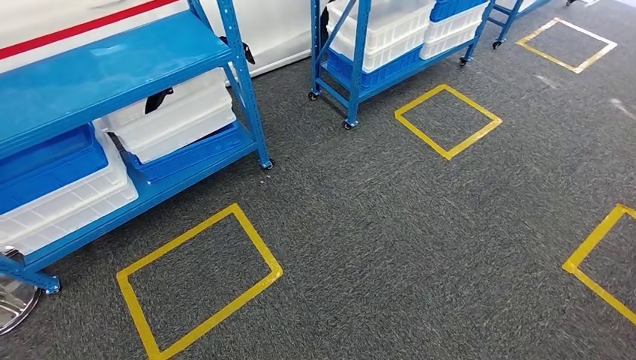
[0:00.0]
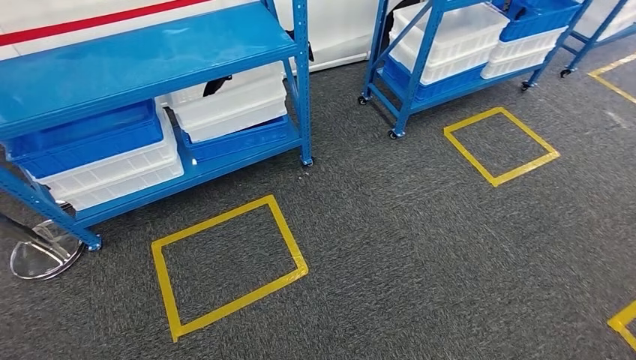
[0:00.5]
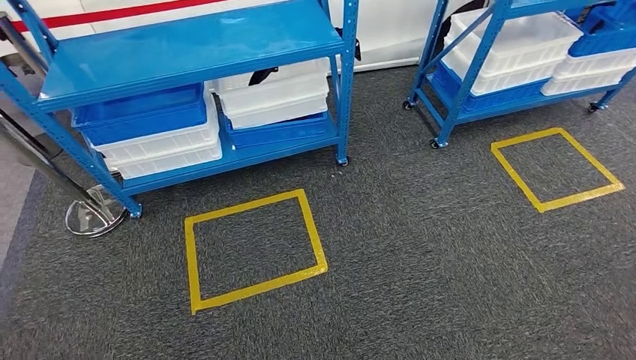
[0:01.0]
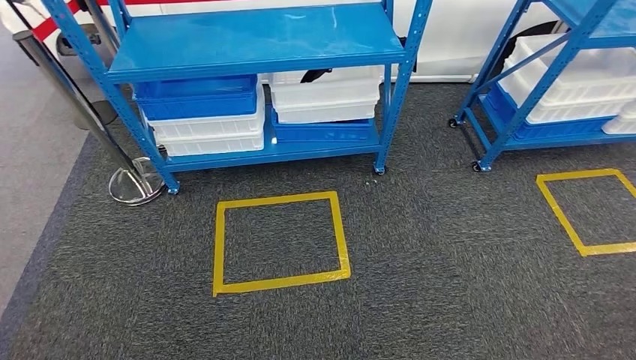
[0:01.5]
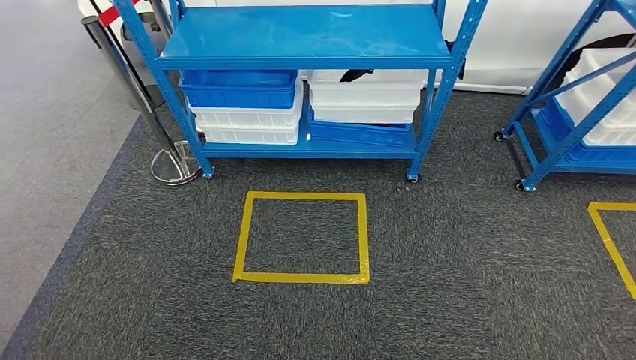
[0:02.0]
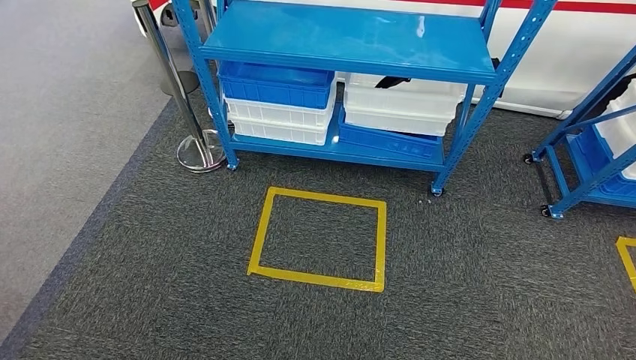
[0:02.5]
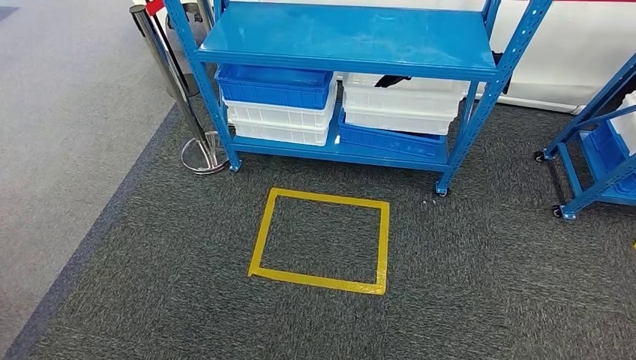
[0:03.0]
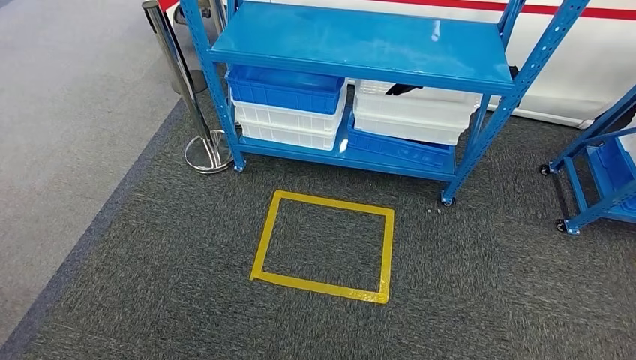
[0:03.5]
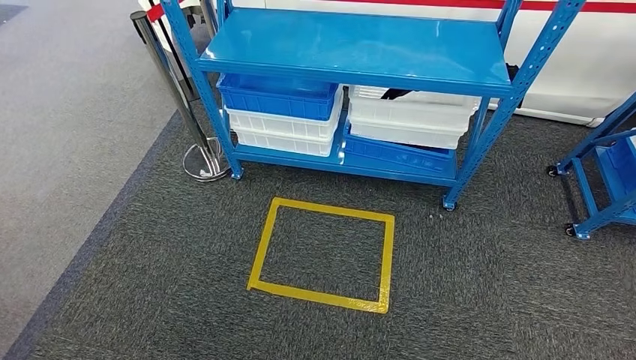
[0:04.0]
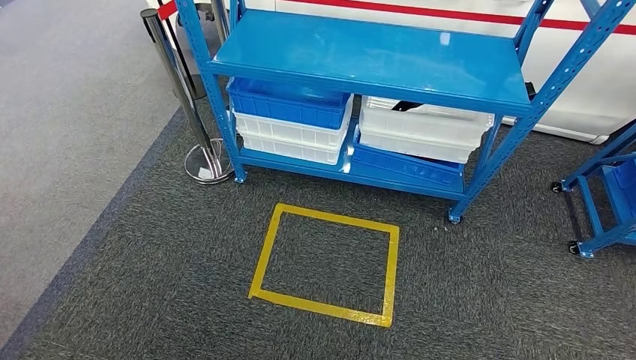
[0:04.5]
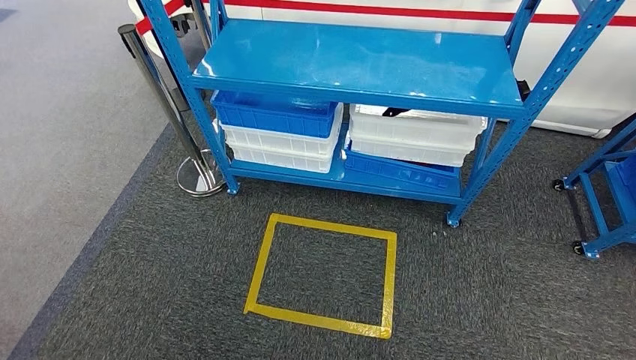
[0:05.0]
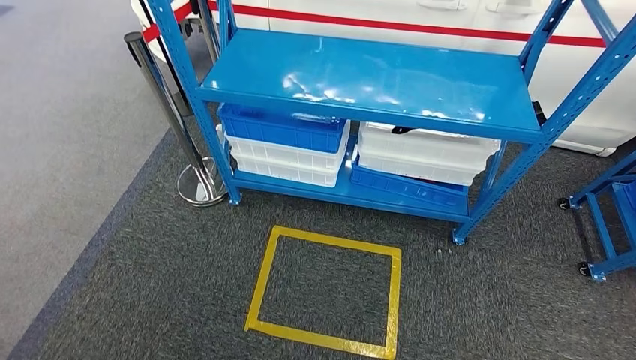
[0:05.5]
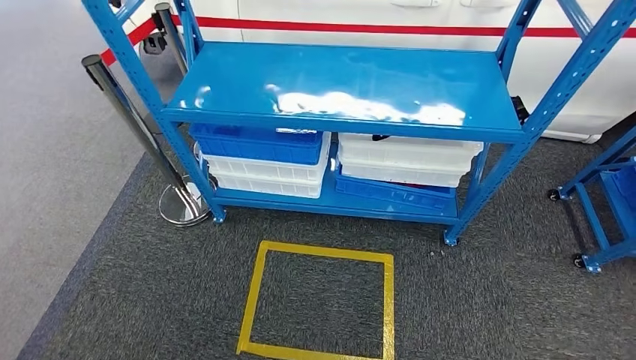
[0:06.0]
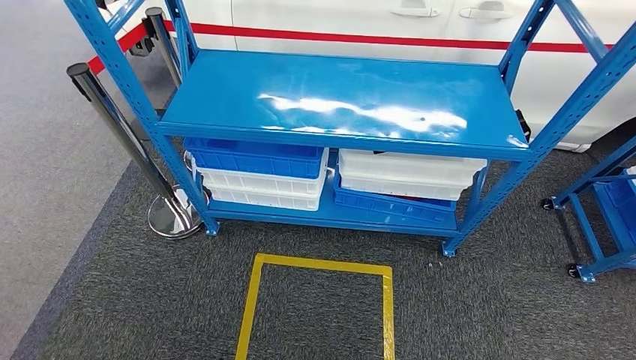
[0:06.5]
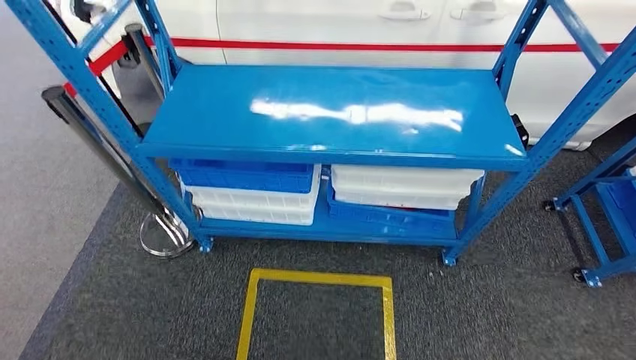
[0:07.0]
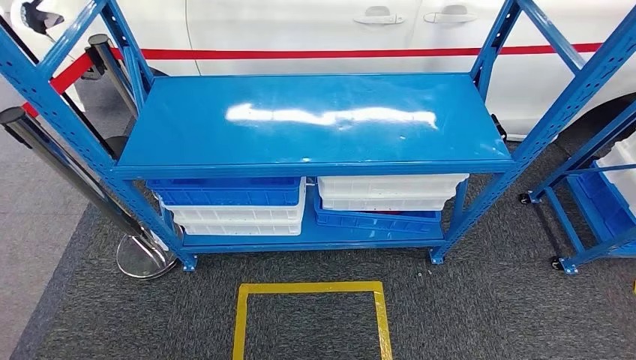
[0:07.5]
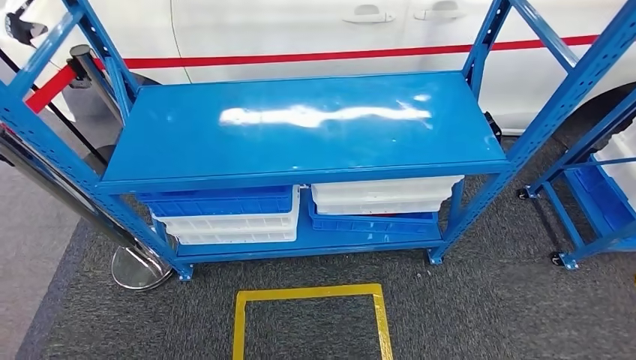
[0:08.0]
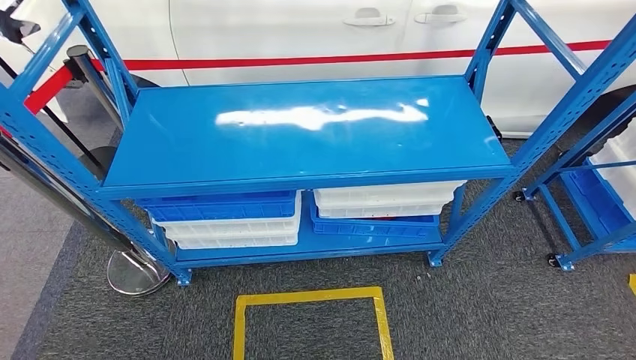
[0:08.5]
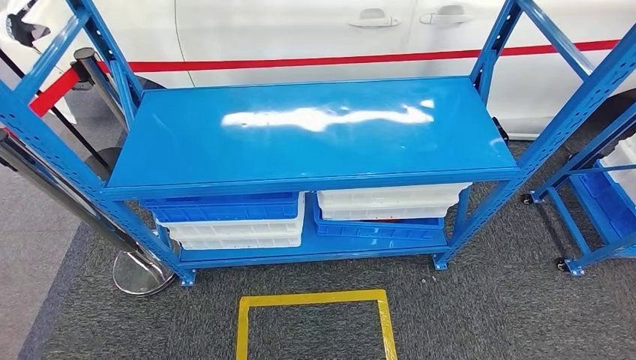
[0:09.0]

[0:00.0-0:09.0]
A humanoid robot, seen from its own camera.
Step, 0:00.0 to 0:09.0: Return to the initial position at the shelf.

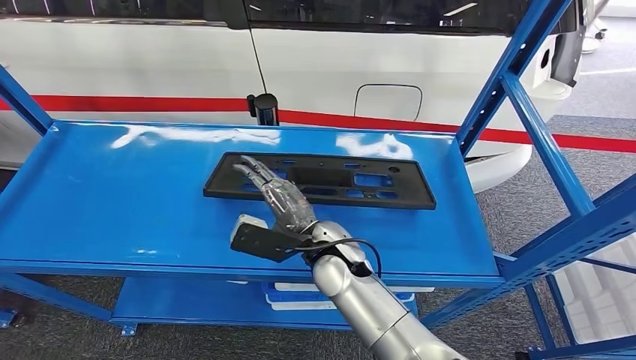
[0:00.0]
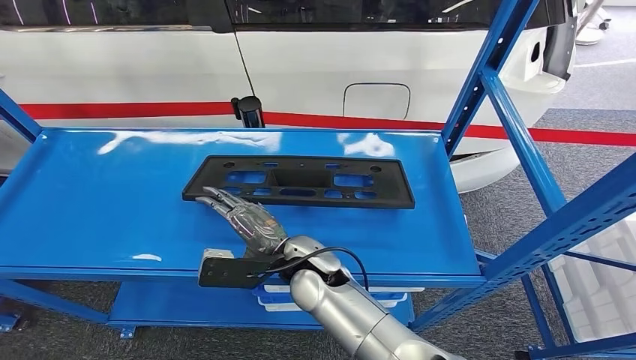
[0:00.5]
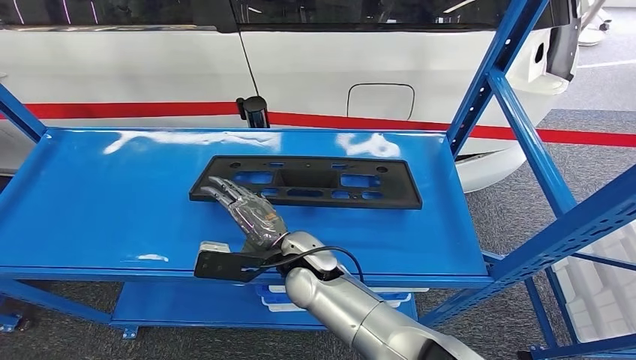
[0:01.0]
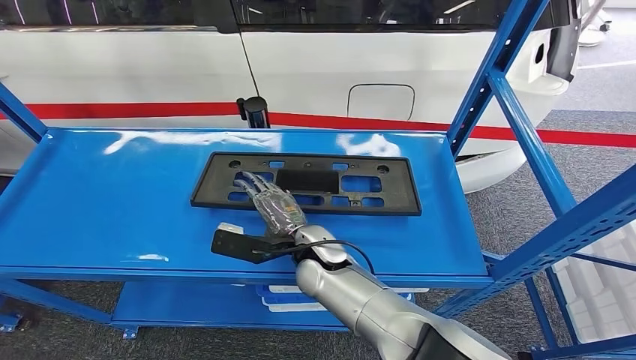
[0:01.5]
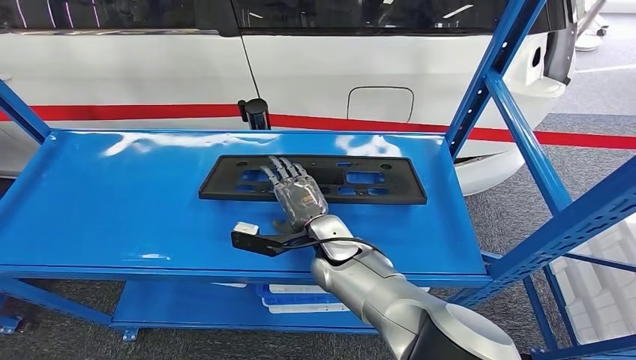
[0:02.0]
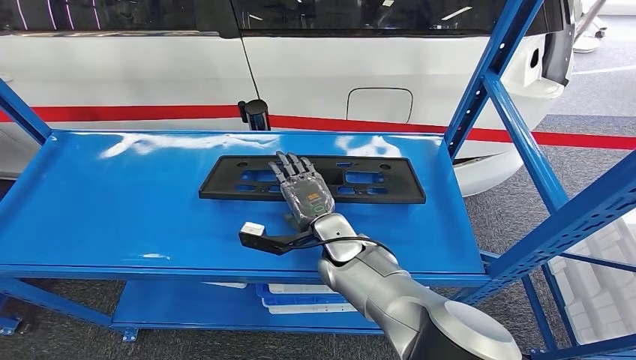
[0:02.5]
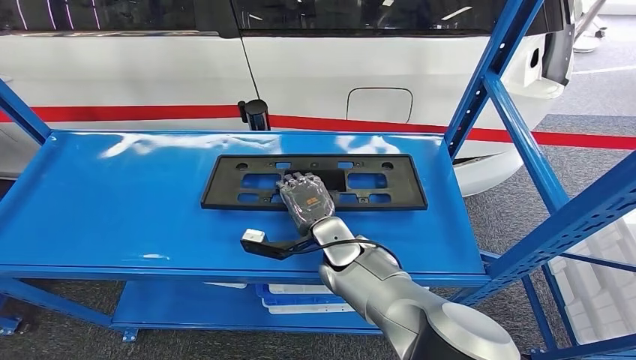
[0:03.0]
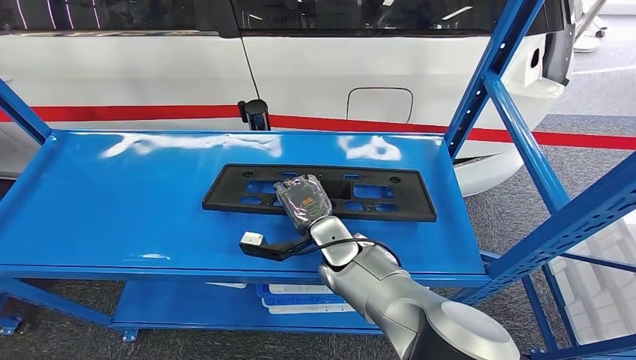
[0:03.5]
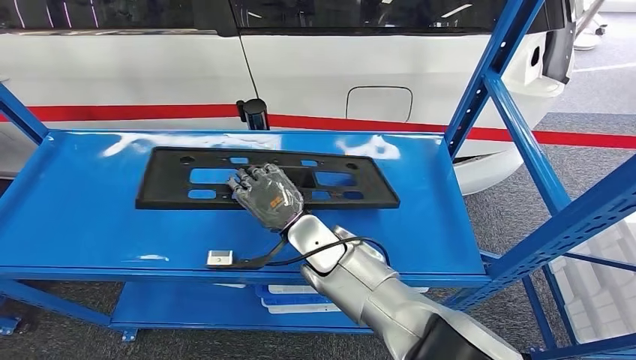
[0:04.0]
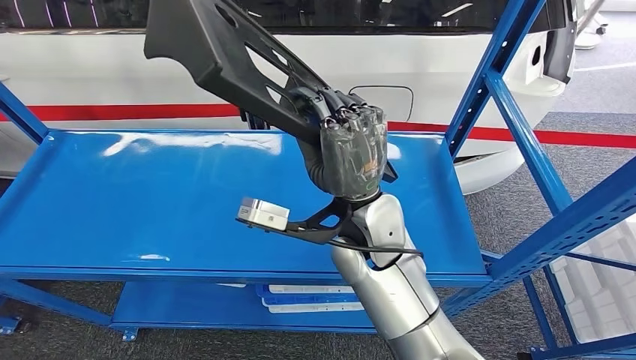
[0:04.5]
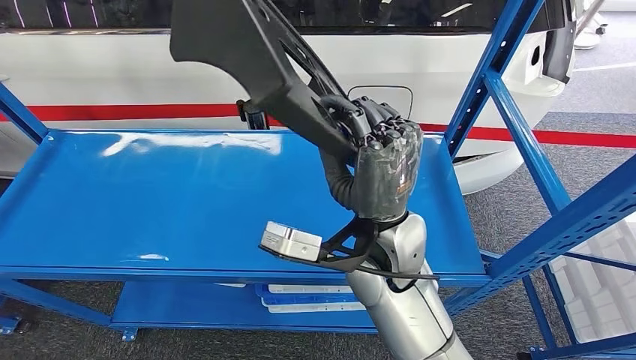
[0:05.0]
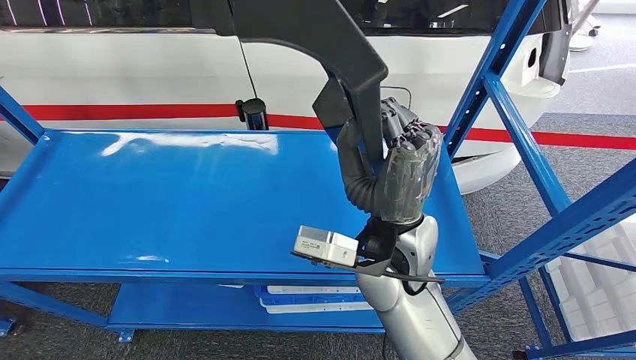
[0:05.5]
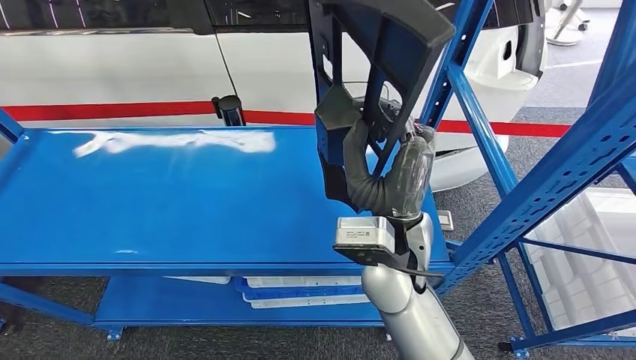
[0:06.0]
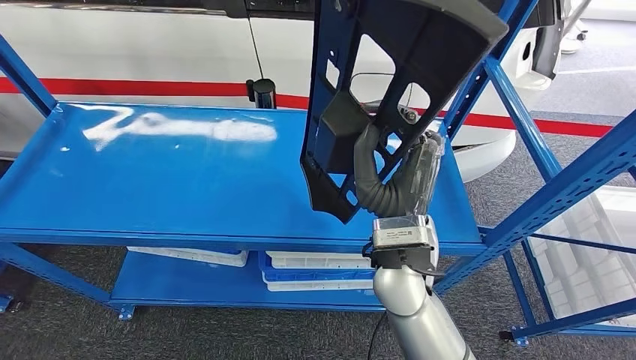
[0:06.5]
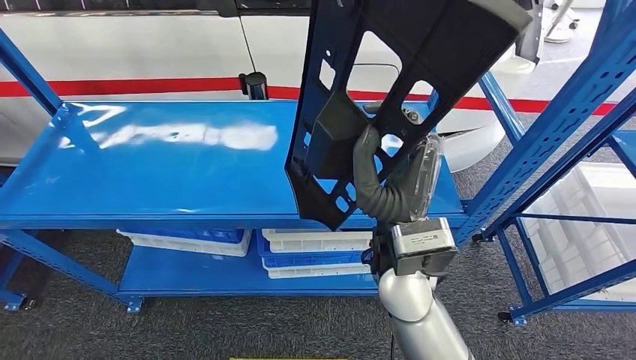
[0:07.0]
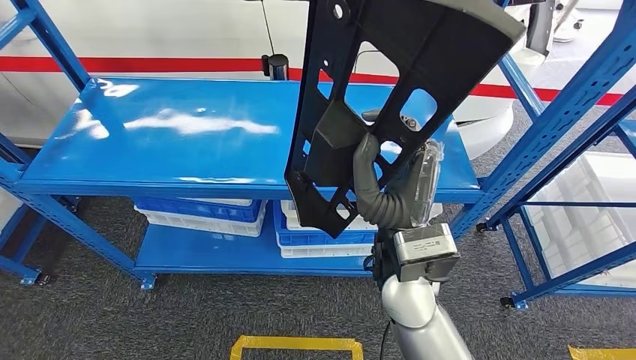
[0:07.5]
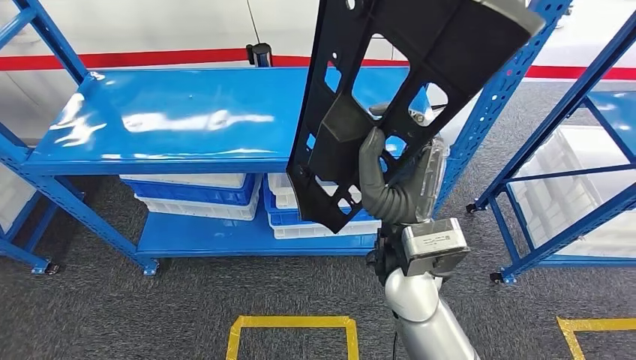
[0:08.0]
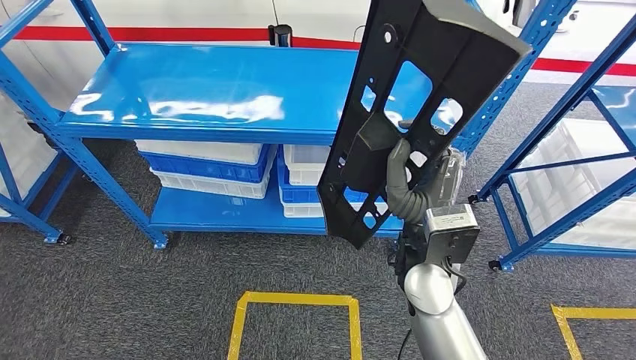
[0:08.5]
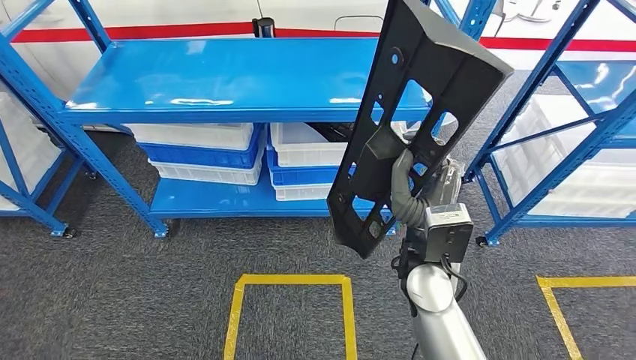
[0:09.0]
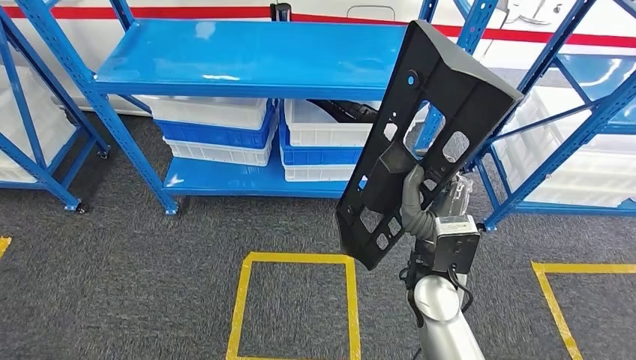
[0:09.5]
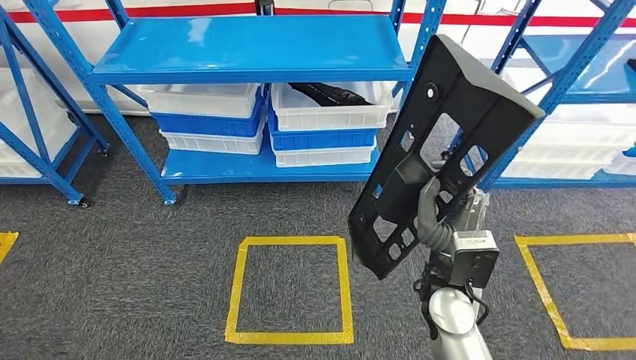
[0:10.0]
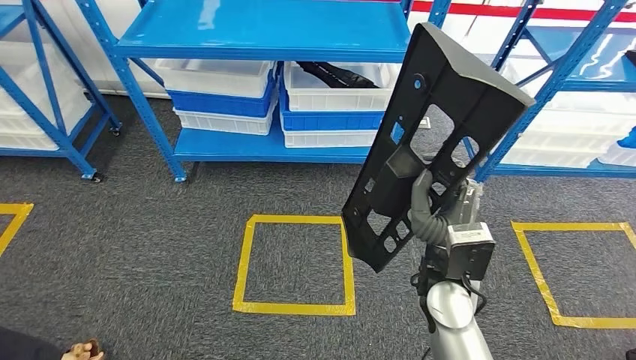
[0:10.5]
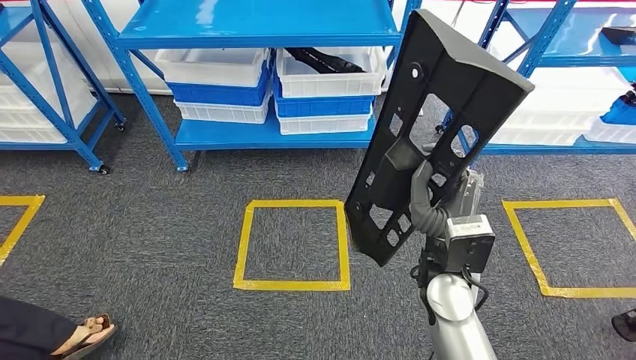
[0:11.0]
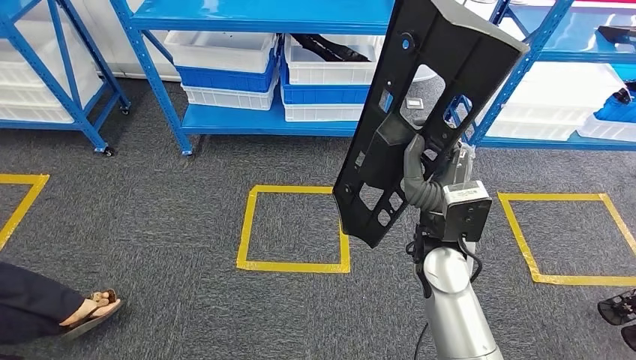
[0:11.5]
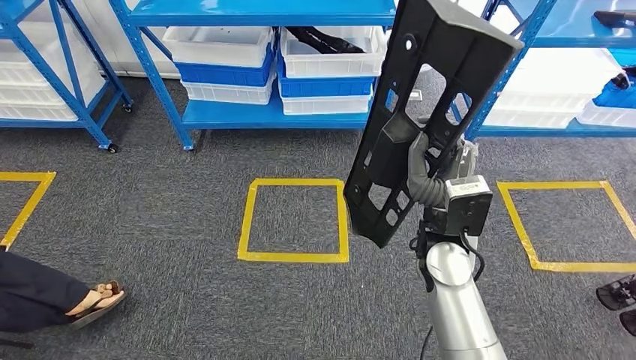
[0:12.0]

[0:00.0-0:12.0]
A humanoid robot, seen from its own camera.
Step, 0:00.0 to 0:04.0: Pick up the large material from the shelf.
